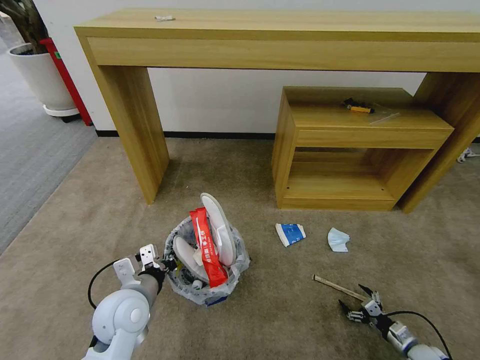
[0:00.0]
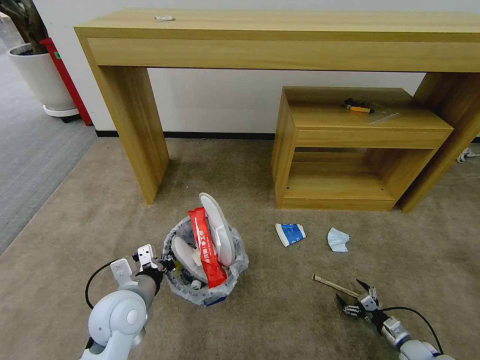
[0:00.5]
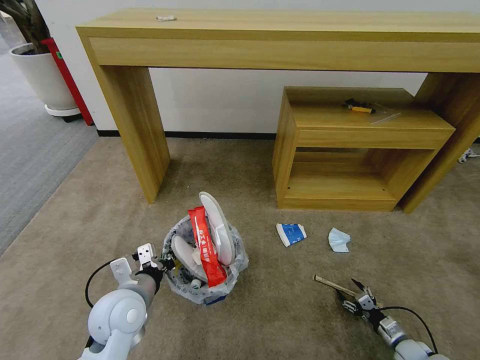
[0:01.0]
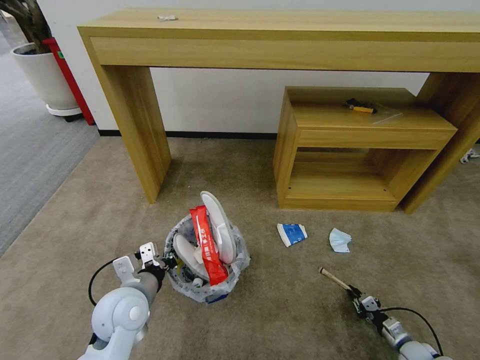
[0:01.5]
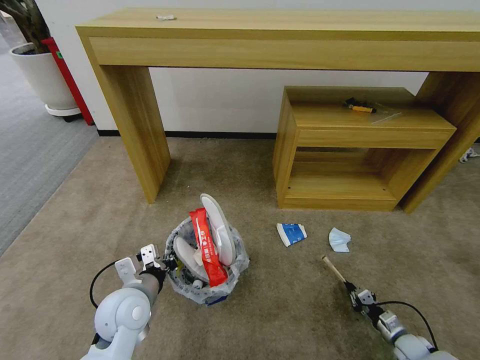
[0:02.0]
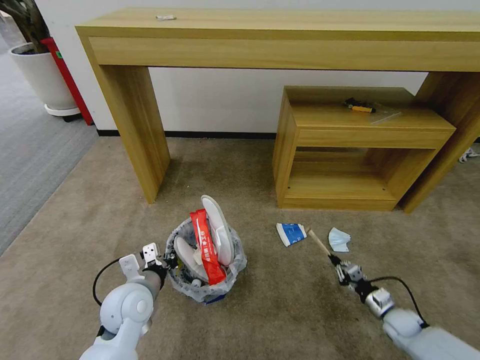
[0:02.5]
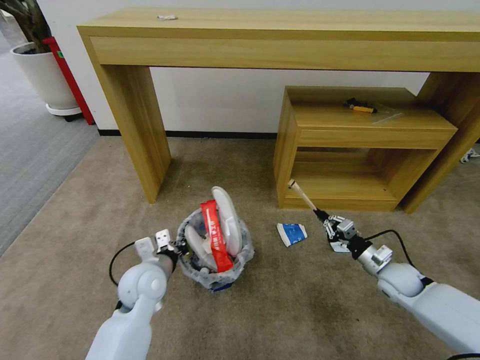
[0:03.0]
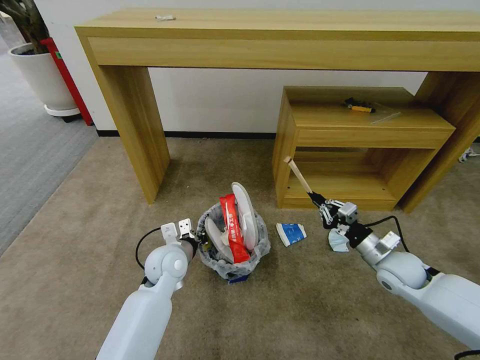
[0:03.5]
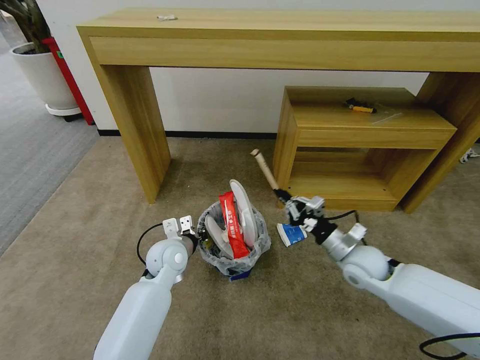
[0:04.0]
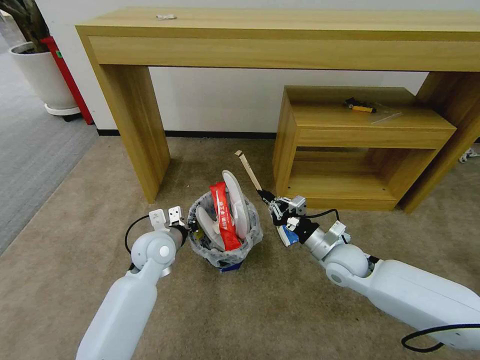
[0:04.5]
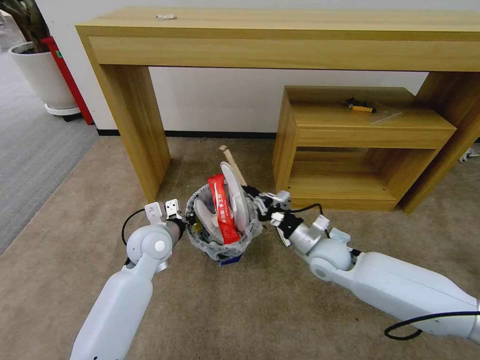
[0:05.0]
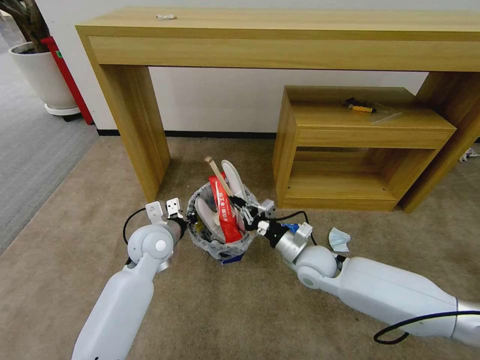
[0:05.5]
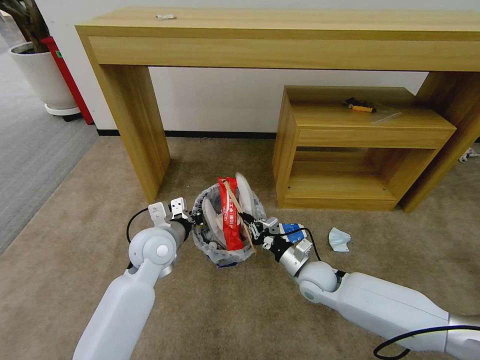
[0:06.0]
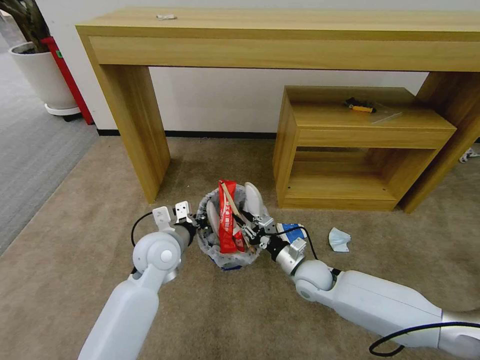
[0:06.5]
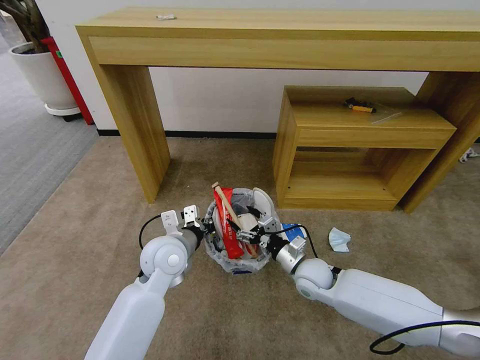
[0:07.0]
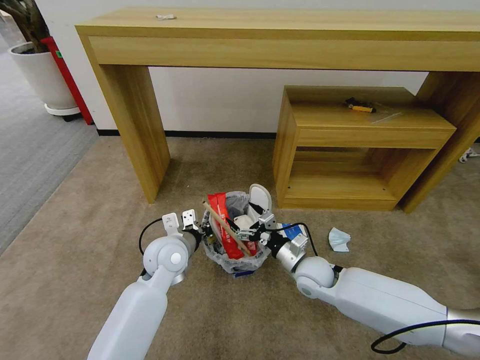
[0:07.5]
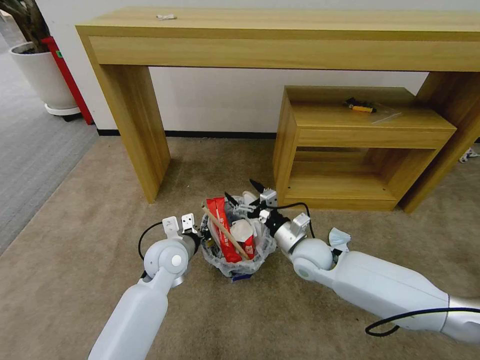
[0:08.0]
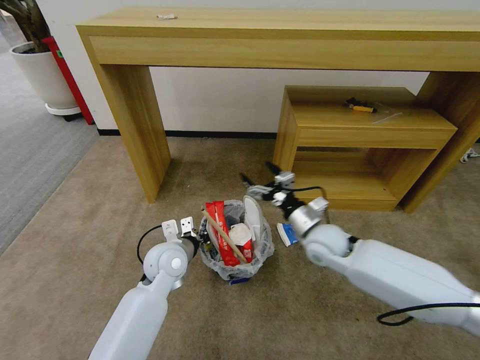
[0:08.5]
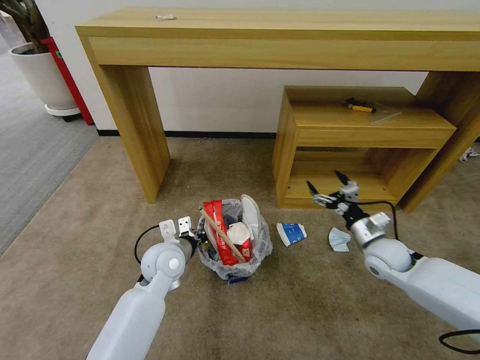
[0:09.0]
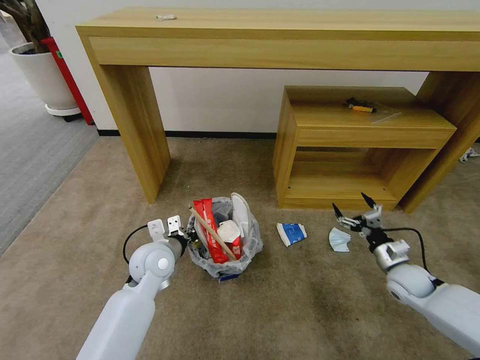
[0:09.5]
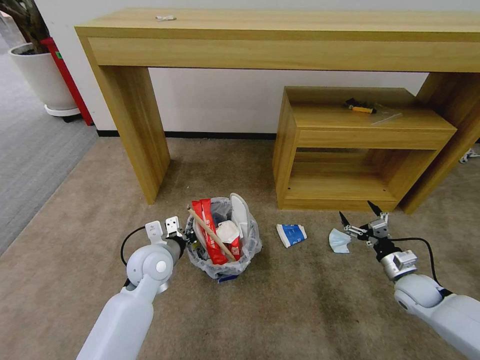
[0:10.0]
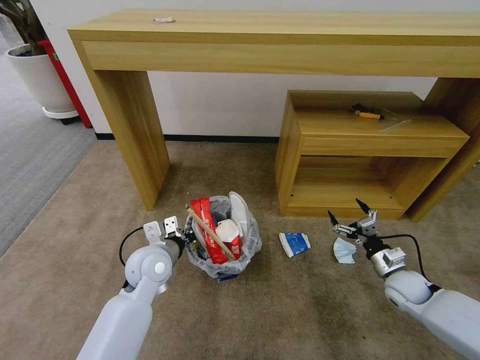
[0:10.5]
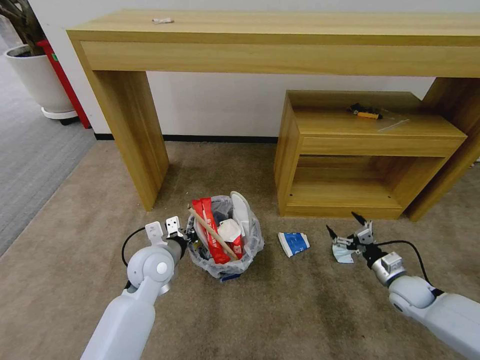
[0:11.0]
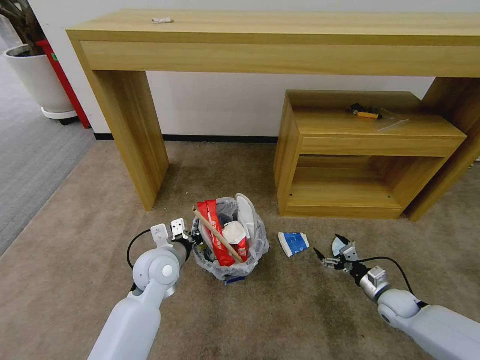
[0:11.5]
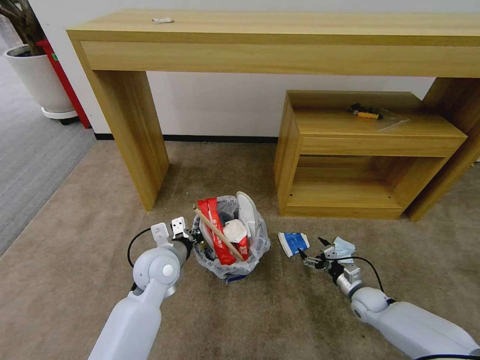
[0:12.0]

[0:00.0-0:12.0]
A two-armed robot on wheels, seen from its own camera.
Task of the whole recording: Pick up the trash bin and place the garbage on the floor into it.
0:00.0 to 0:02.0: The right gripper closes.
0:02.0 to 0:04.0: The right gripper moves upward, to the left and forward, some 35 cm. Meanwhile the left gripper heads forward and to the right, covering approximately 15 cm.
0:04.0 to 0:06.0: The right gripper goes roughly 10 cm to the left and downward. The left gripper goes some 5 cm upward.
0:06.0 to 0:08.0: The right gripper shifts some 5 cm upward, and opens its fingers.
0:08.0 to 0:10.0: The right gripper travels to the right by about 30 cm.
0:10.0 to 0:12.0: The right gripper is displaced downward and to the left by approximately 15 cm.

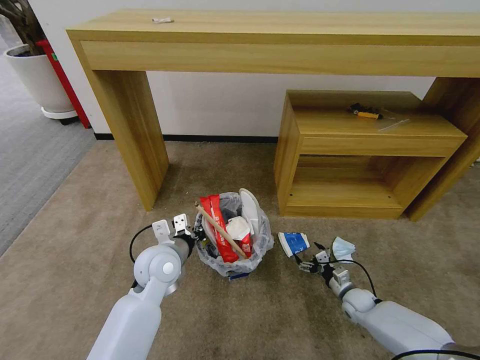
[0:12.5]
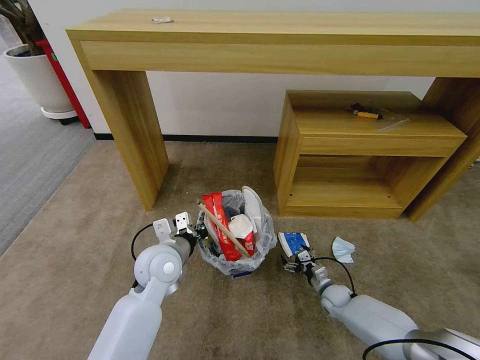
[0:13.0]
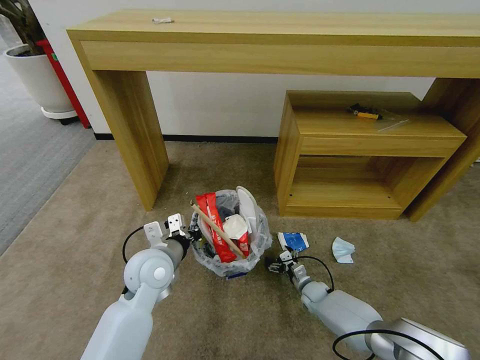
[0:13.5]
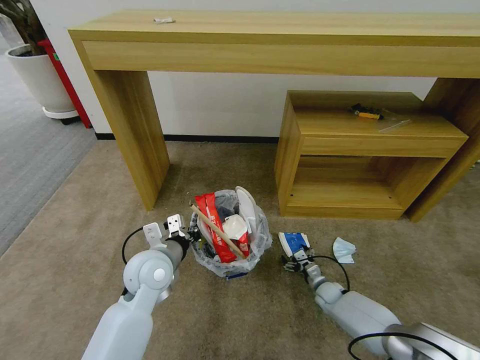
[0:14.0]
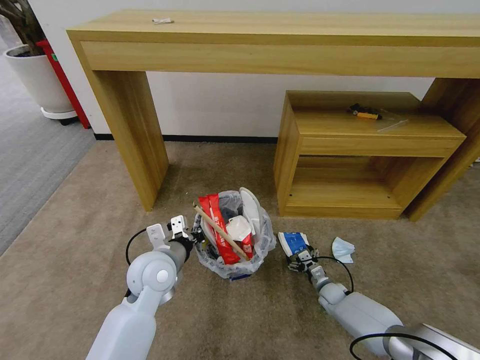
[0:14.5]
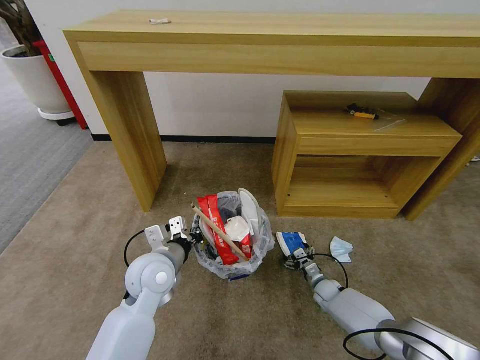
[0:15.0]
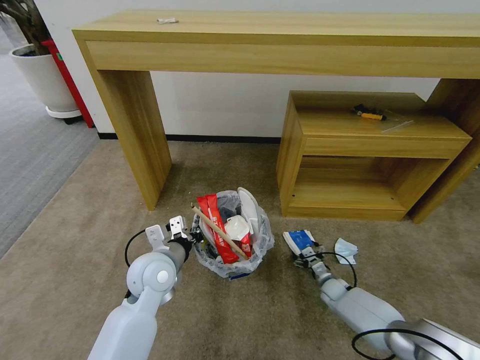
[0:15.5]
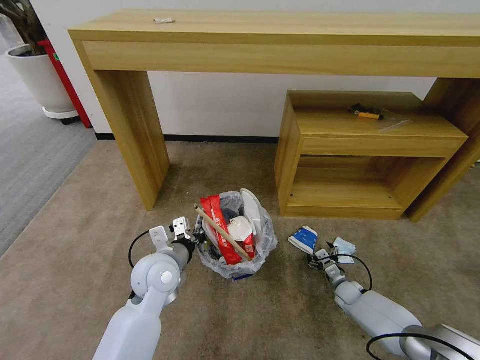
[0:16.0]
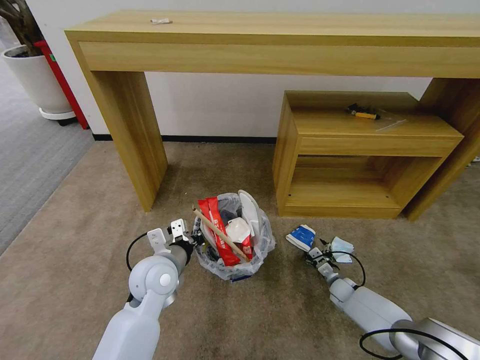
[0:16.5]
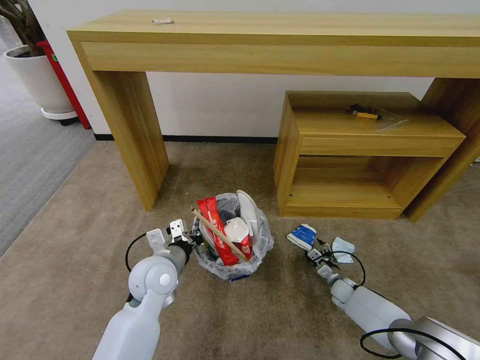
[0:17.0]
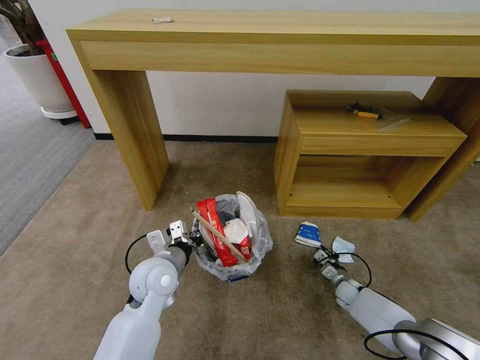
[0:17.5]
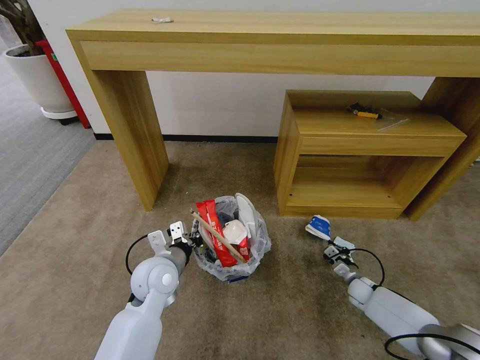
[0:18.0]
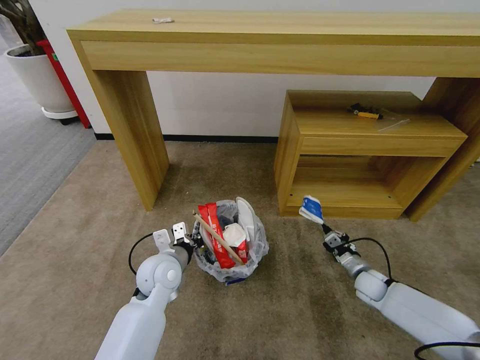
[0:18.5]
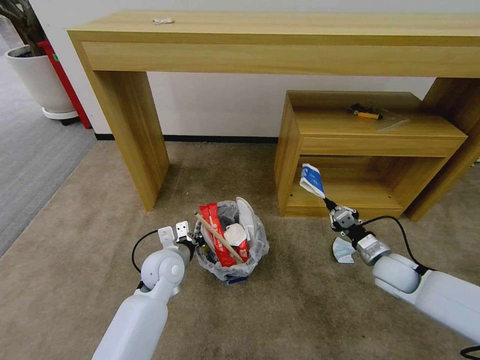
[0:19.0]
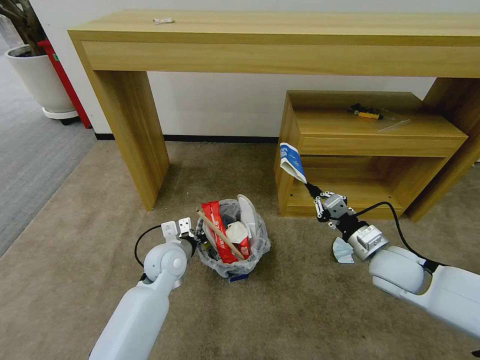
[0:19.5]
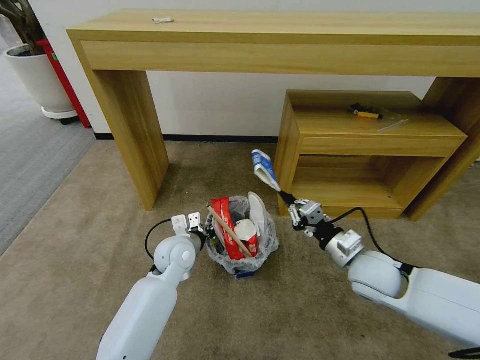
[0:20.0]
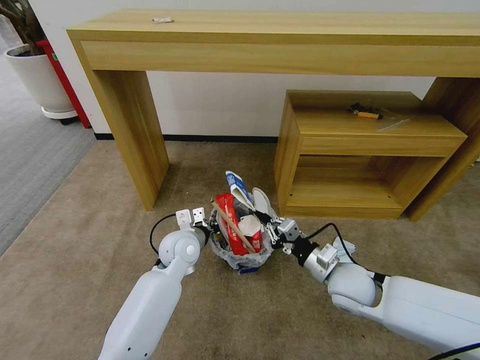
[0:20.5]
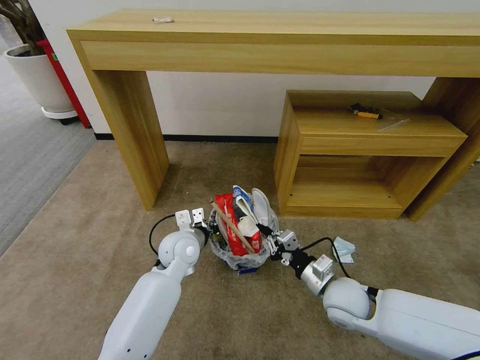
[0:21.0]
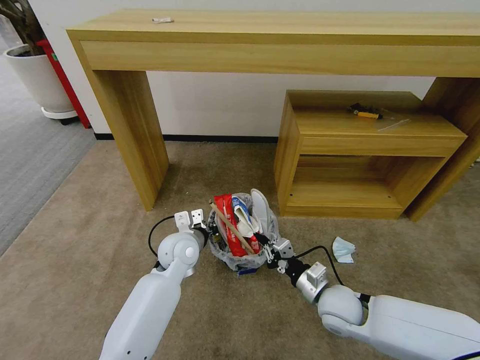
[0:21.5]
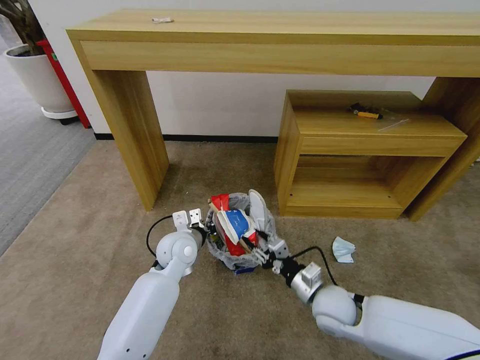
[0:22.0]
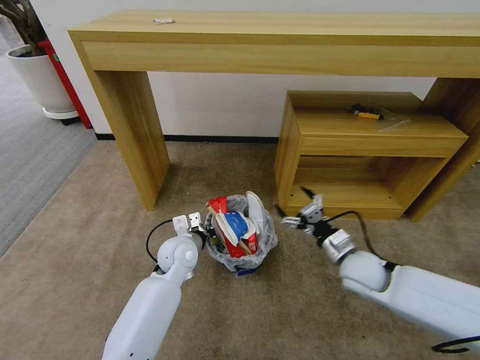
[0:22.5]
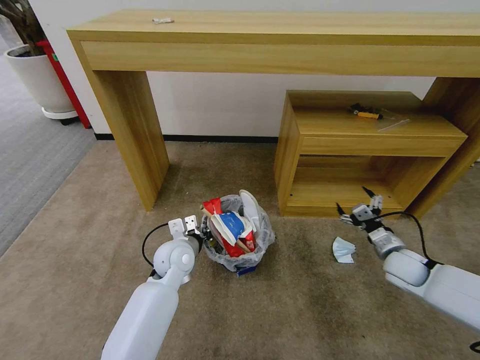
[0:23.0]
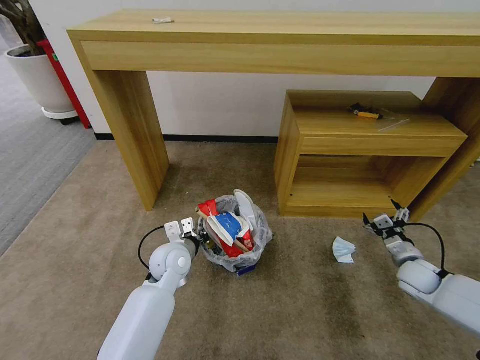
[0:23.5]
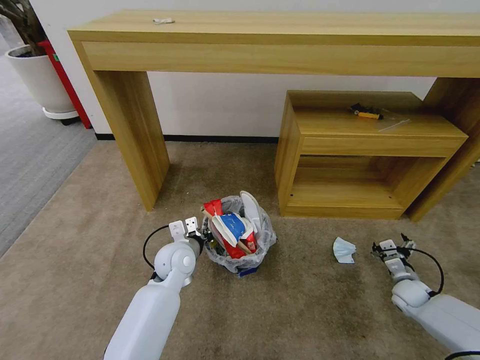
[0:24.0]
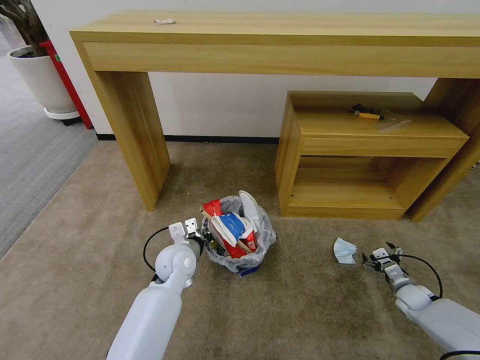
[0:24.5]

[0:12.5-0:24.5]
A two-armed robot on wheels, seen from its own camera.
Task of the whole recording: Pick up the trash bin and place the garbage on the floor into it.
0:12.5 to 0:14.5: The right gripper travels to the left by about 5 cm.
0:14.5 to 0:16.5: The grippers stay close to where they were, moving slightly.
0:16.5 to 0:18.5: The right gripper goes some 10 cm upward, and closes.
0:18.5 to 0:20.5: The left gripper moves forward, approximately 5 cm. Meanwhile the right gripper is displaced upward and to the left by roughly 25 cm.
0:20.5 to 0:22.5: The right gripper moves about 5 cm, and opens.
0:22.5 to 0:24.5: The right gripper goes approximately 30 cm to the right and downward.

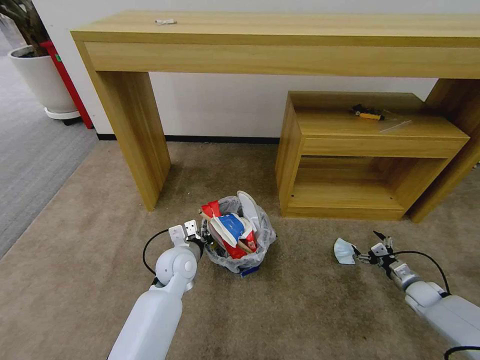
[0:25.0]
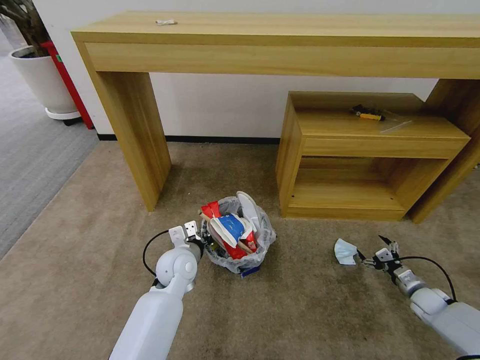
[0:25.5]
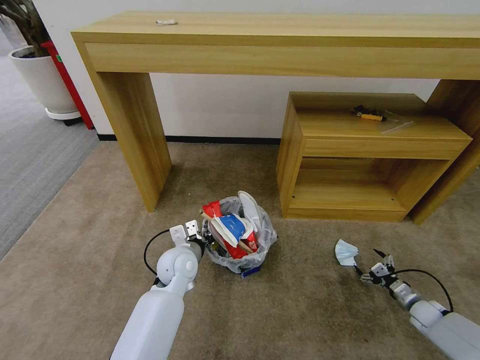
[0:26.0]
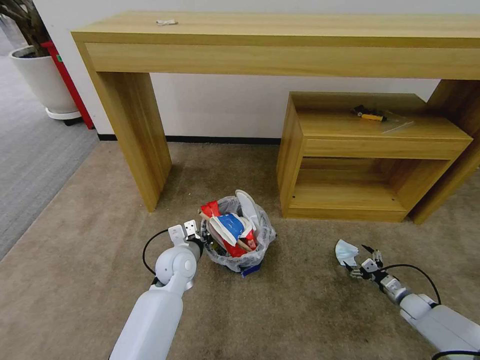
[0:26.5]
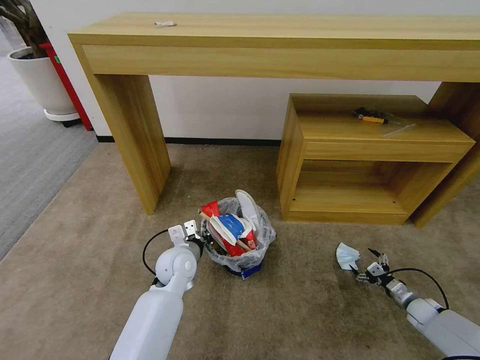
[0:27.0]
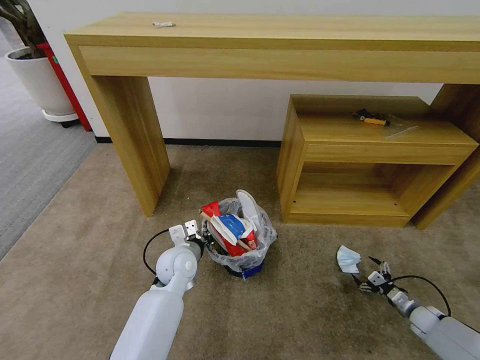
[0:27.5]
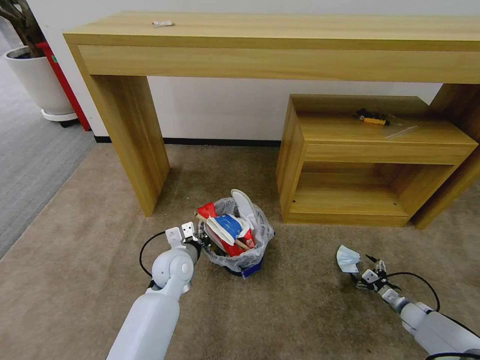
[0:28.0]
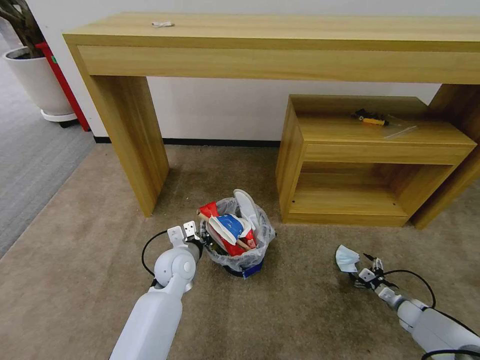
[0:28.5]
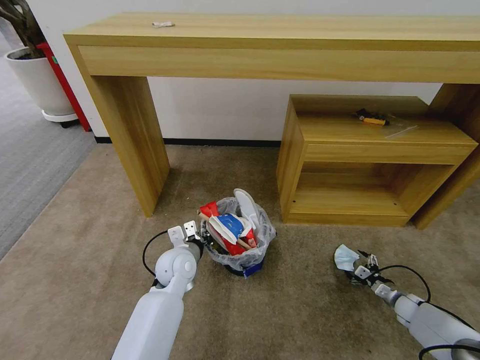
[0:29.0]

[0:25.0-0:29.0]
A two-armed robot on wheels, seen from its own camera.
Task of the whole recording: Pick up the trash bin and place the garbage on the floor into it.
0:25.0 to 0:27.0: The right gripper moves roughly 5 cm.
0:27.0 to 0:29.0: There are only small adjustments of the grippers.
